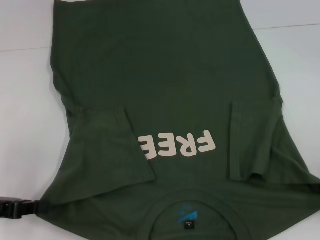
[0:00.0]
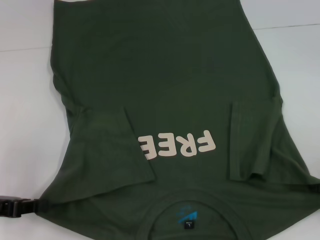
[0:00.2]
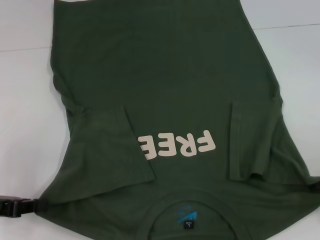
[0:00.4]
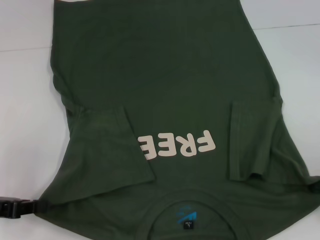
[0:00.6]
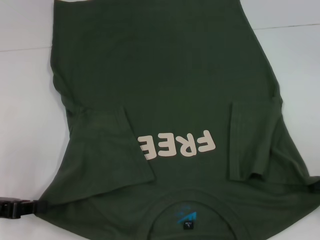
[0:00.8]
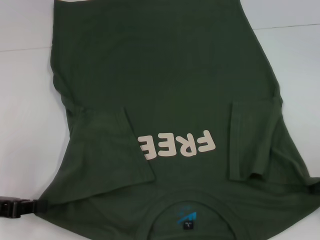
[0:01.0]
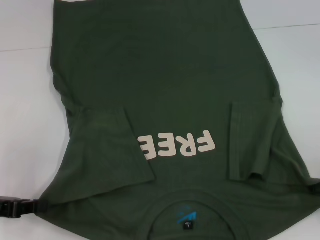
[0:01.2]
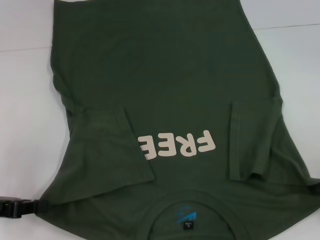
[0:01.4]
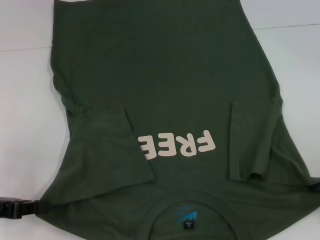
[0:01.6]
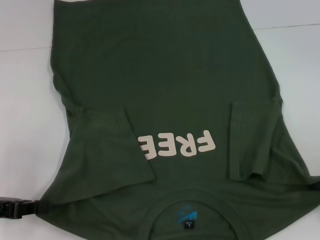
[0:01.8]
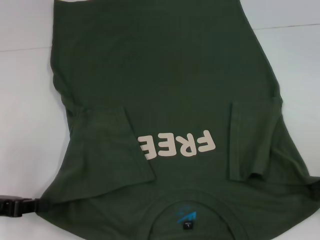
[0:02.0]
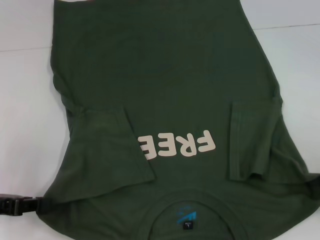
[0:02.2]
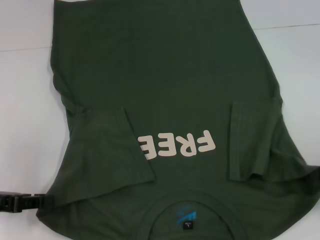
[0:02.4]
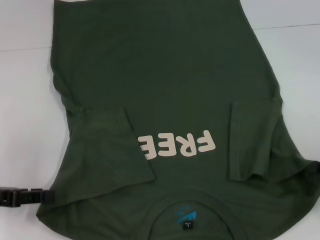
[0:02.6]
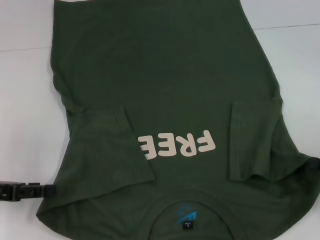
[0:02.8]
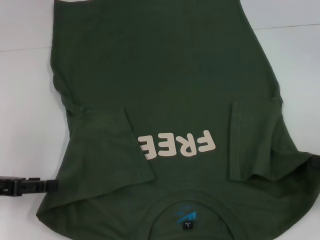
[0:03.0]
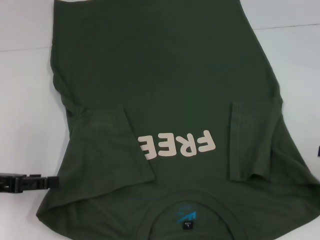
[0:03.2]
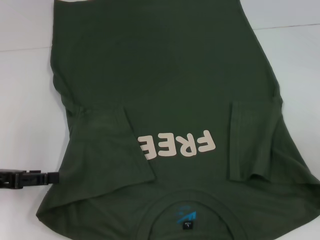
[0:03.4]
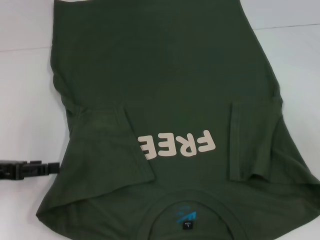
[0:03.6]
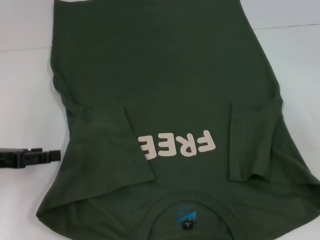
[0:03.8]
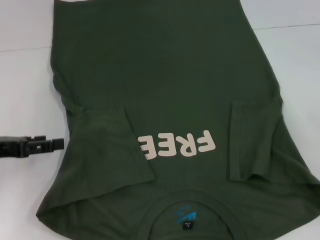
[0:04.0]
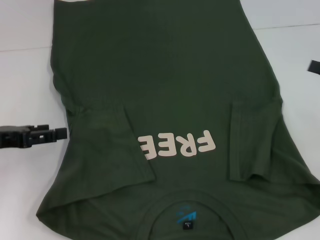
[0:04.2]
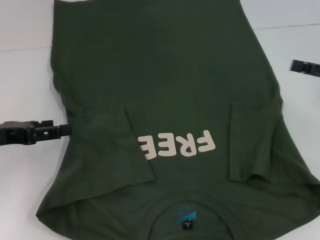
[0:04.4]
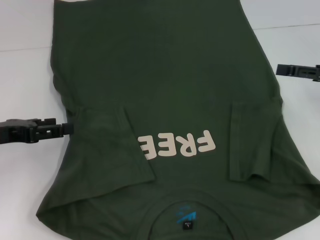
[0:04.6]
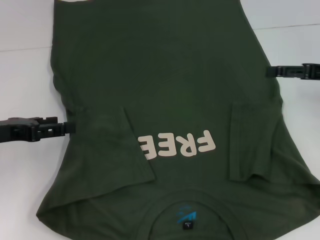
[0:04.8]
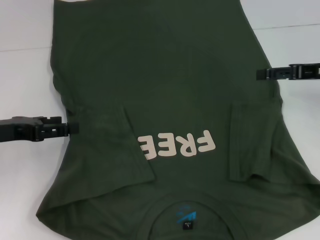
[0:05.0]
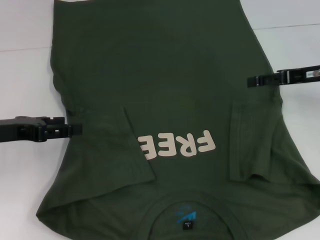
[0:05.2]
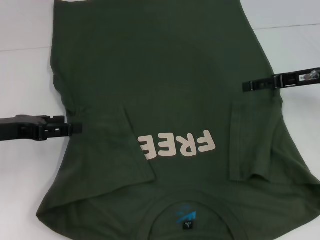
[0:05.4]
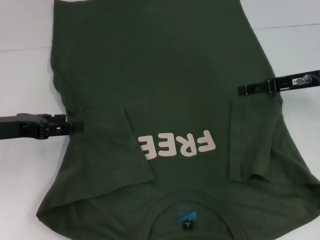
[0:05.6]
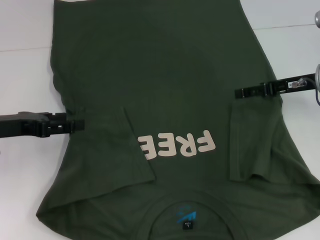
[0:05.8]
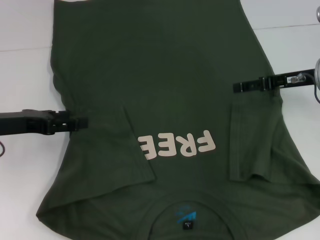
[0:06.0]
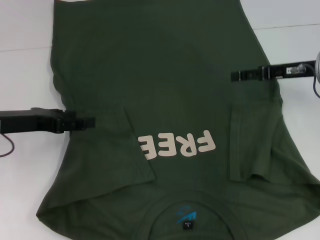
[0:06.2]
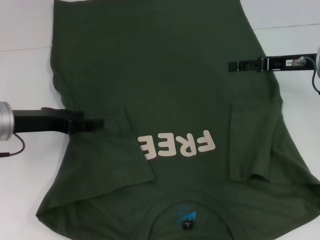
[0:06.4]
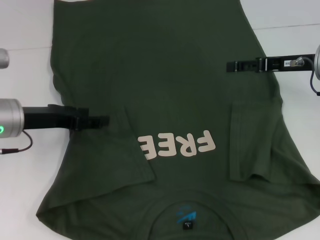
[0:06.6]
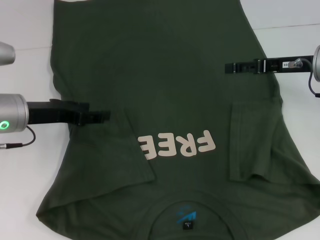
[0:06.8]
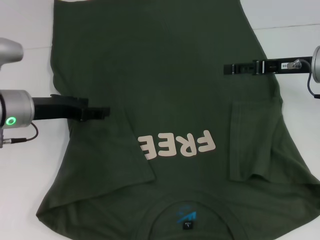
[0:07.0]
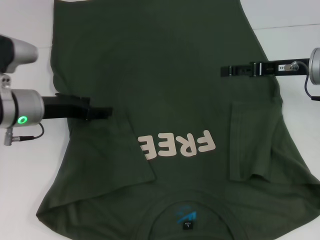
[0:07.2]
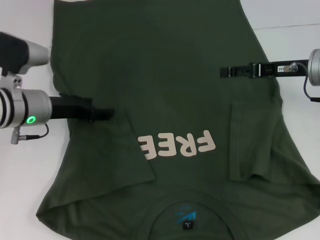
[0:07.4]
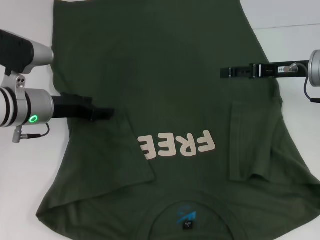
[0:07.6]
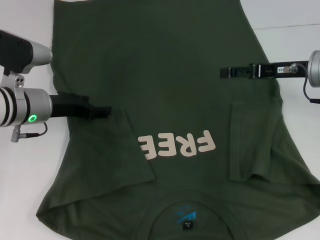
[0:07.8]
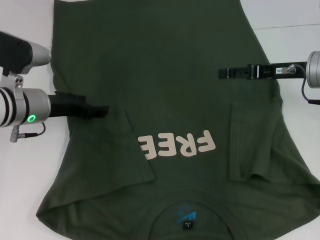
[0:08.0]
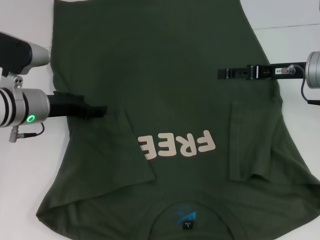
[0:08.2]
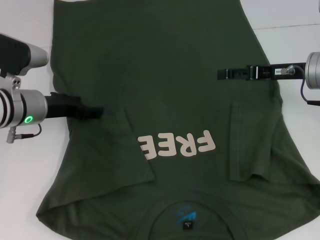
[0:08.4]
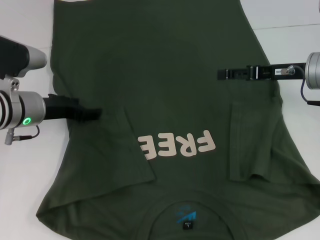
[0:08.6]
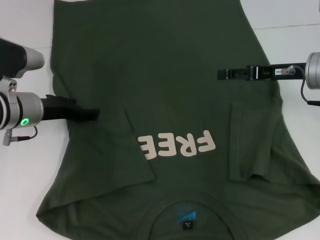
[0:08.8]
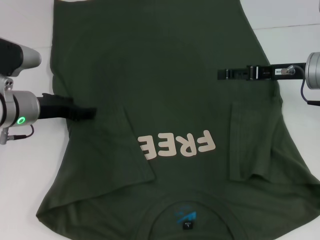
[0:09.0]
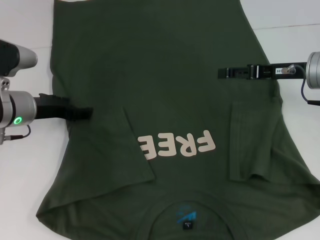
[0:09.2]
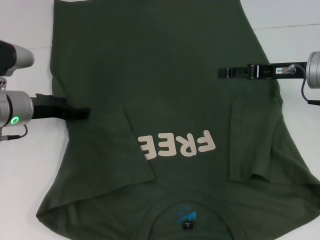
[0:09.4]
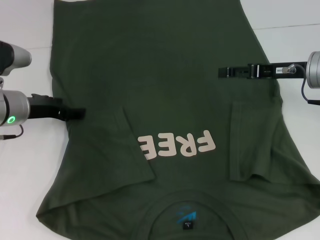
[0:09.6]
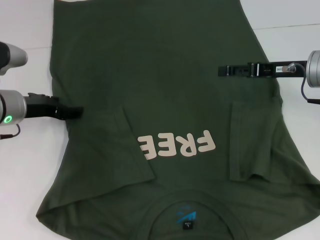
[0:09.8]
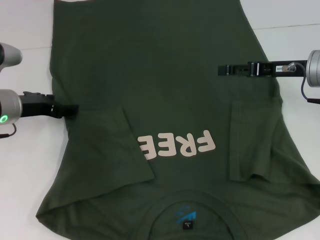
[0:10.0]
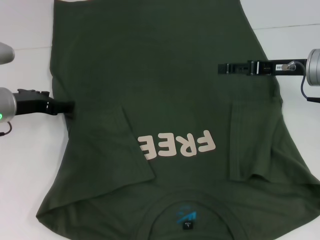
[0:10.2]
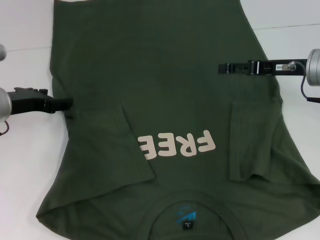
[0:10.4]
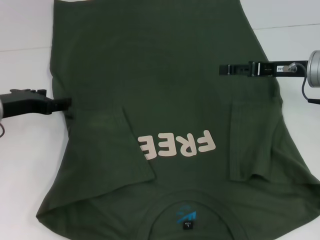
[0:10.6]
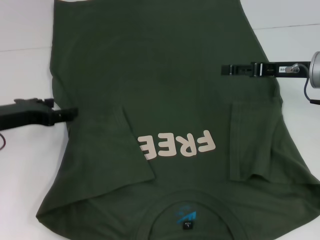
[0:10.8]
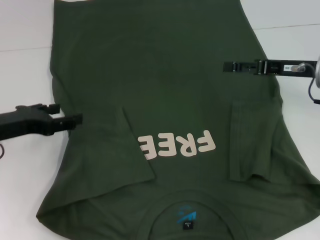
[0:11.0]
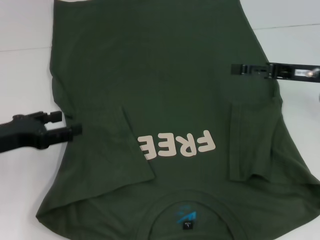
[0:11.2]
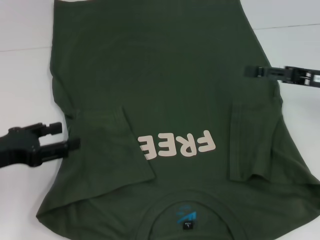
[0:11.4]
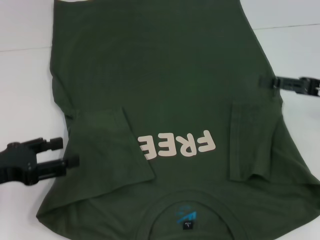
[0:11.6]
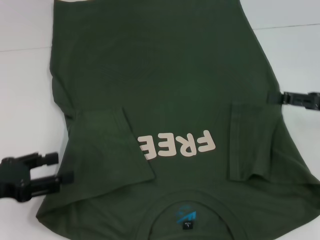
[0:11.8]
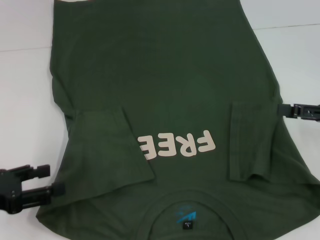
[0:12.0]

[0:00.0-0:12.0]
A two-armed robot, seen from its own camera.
0:00.0 to 0:01.6: Neither gripper changes place.
0:01.6 to 0:03.0: The left gripper opens its fingers. Meanwhile the right gripper opens up.
0:03.0 to 0:04.4: The left gripper shifts by some 5 cm. Meanwhile the right gripper moves forward and upward, about 10 cm.
0:04.4 to 0:06.0: The right gripper is displaced to the left and forward by roughly 10 cm.
0:06.0 to 0:07.6: The left gripper goes some 10 cm to the right.
0:07.6 to 0:10.4: The grippers move only a little.
0:10.4 to 0:12.0: The left gripper is displaced backward and to the left by about 15 cm, while the right gripper shifts roughly 15 cm backward and to the right.

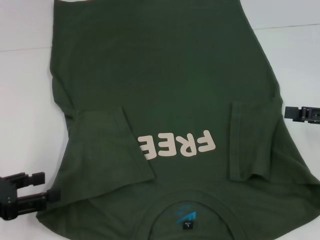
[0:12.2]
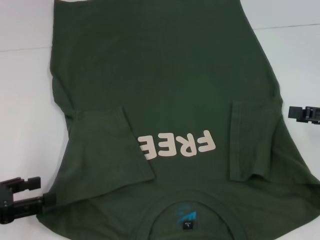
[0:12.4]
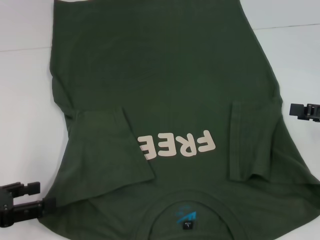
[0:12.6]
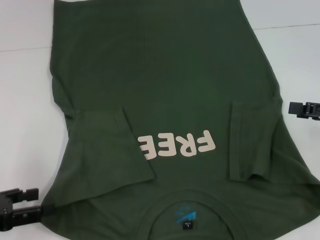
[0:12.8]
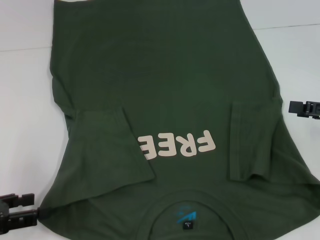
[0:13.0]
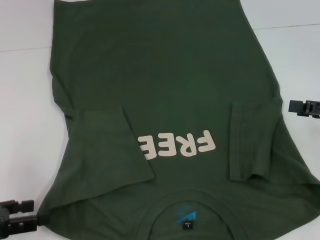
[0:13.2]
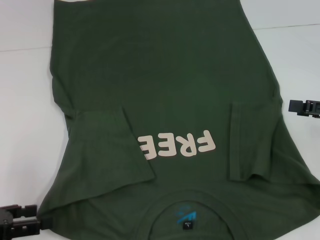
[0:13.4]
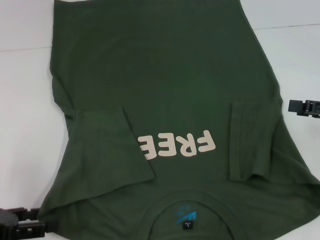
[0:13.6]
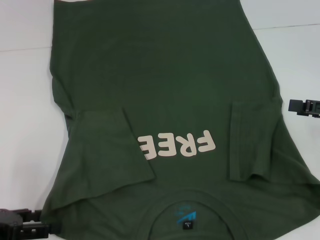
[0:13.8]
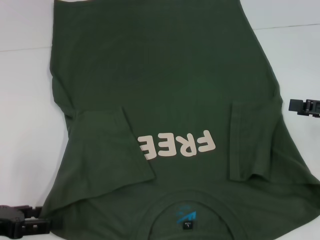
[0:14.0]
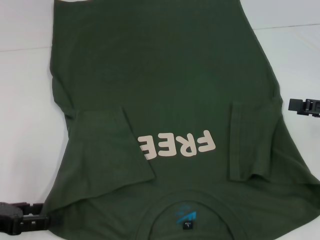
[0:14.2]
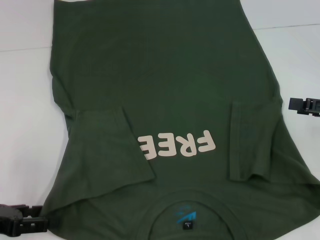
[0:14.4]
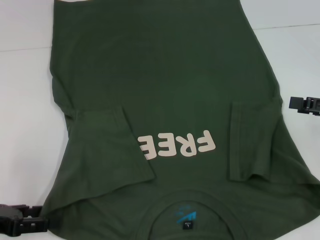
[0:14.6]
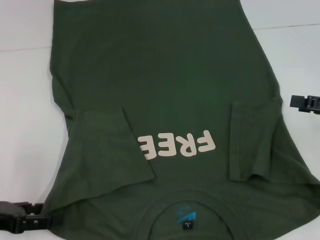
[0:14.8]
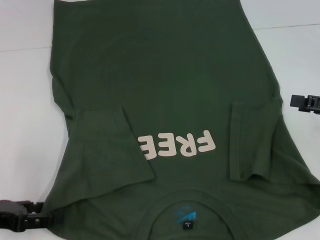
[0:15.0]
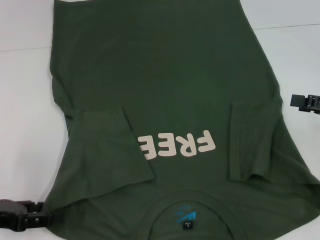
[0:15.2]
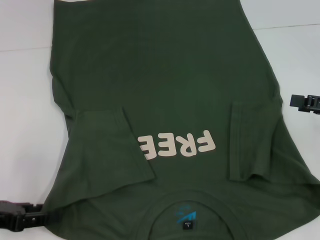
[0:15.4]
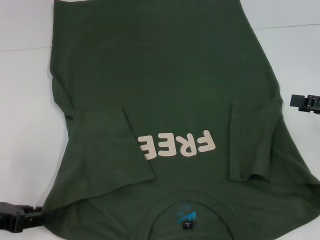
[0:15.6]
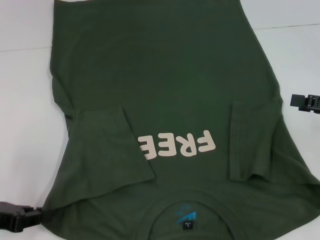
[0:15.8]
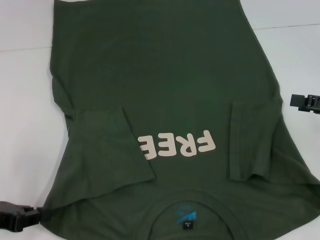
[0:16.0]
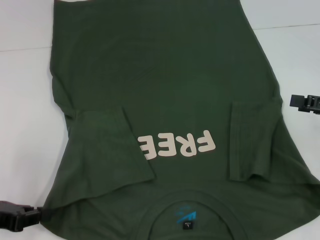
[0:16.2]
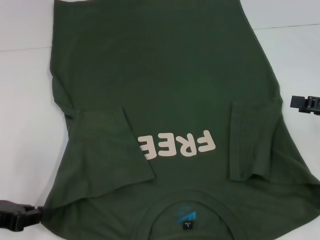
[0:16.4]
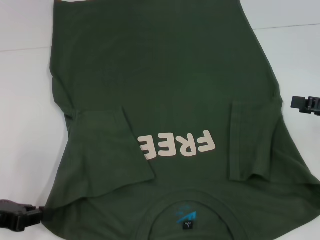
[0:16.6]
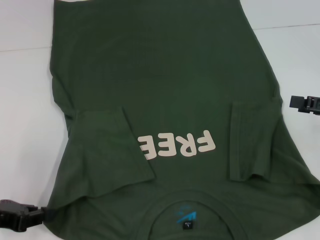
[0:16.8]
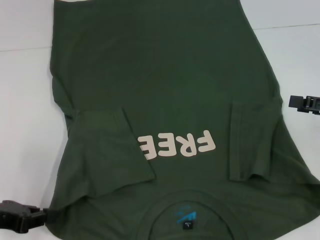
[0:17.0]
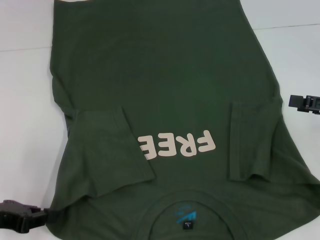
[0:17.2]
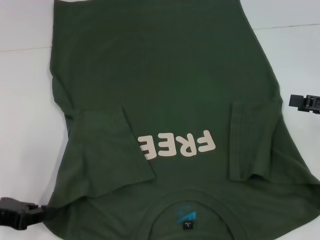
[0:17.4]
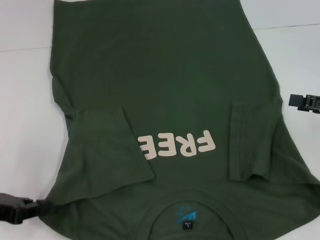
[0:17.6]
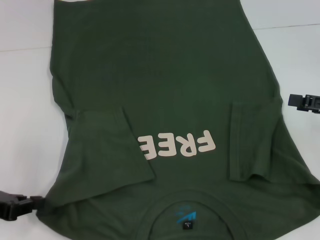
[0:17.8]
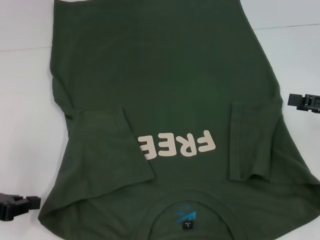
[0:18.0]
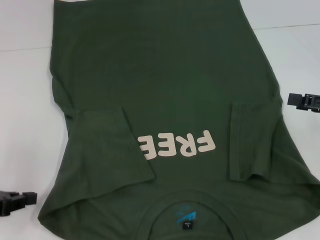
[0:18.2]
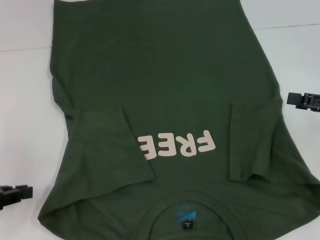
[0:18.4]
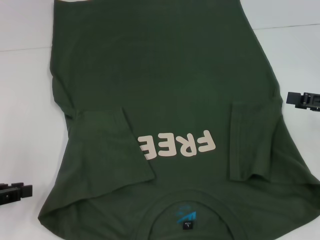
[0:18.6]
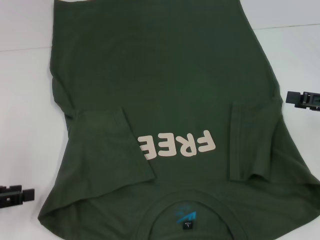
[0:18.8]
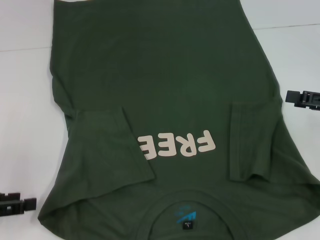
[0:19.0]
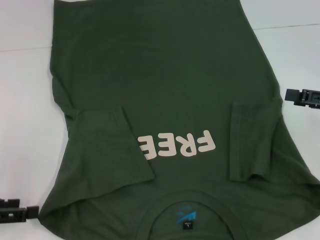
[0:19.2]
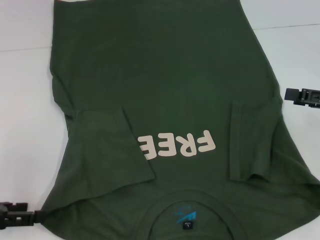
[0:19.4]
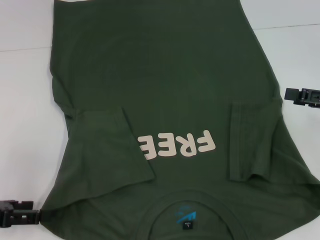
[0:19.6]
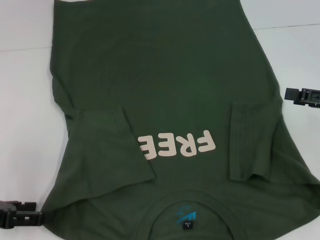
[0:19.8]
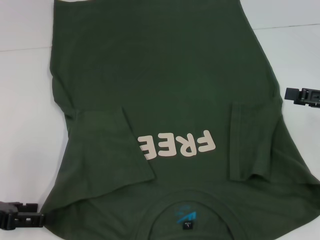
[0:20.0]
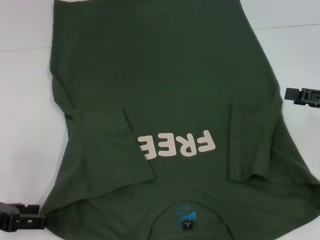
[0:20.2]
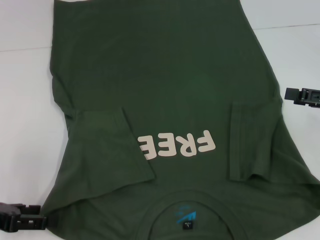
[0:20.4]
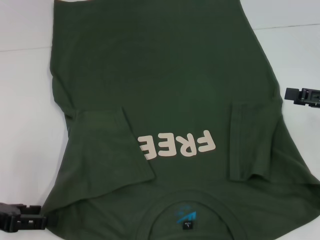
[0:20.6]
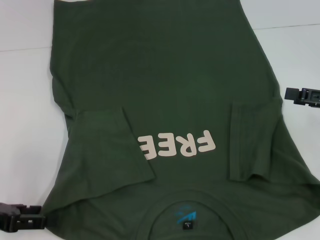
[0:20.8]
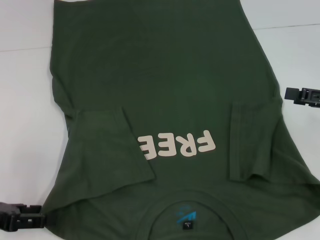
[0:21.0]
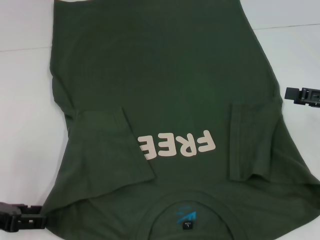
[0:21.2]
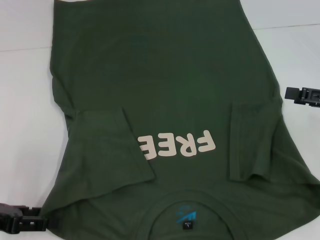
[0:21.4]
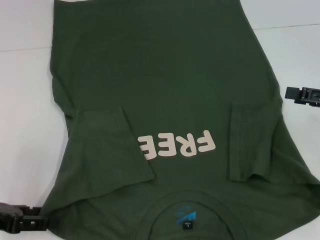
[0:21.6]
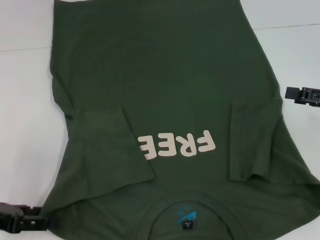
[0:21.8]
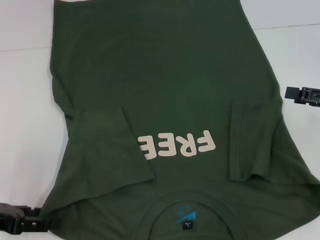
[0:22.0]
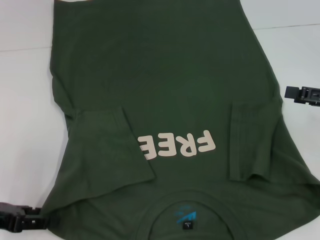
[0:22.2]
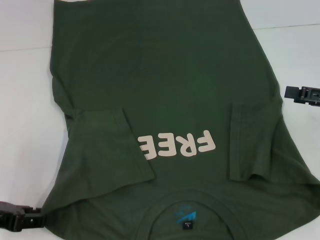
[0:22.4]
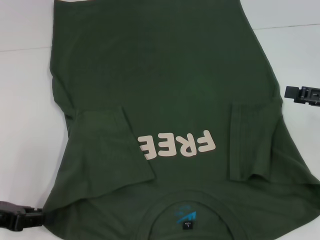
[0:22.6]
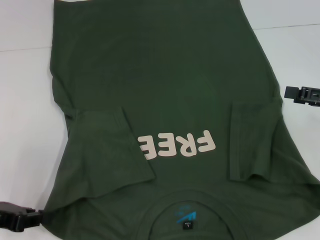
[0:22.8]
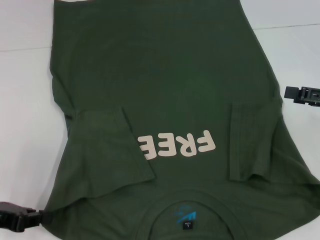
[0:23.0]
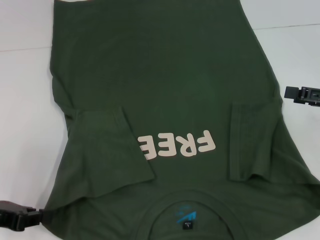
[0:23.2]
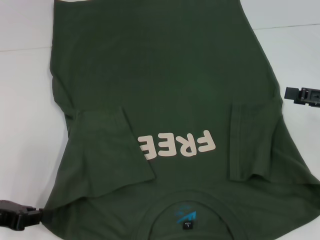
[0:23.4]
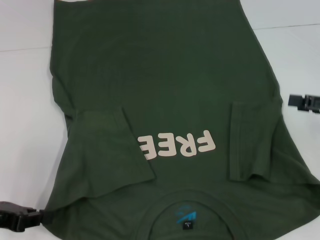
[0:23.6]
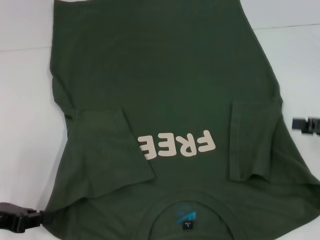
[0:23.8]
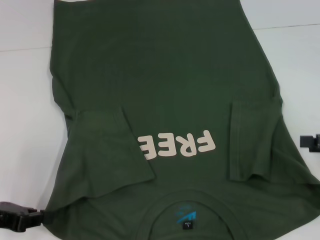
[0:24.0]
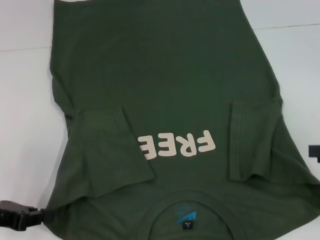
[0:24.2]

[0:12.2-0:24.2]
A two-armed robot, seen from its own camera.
0:12.2 to 0:15.2: The grippers make only small movements.
0:16.6 to 0:18.2: The grippers make only small movements.
0:18.2 to 0:19.8: The left gripper opens its fingers.
0:19.8 to 0:22.6: Neither gripper changes place.
0:22.6 to 0:24.2: The right gripper moves backward, about 5 cm.
